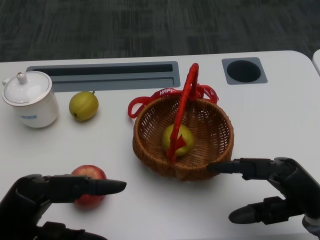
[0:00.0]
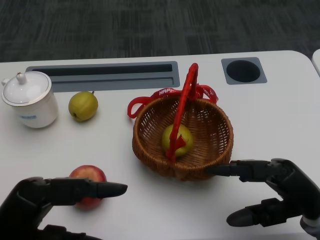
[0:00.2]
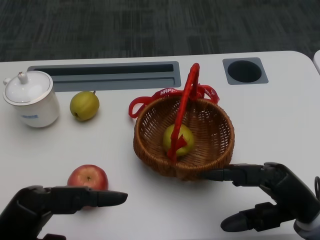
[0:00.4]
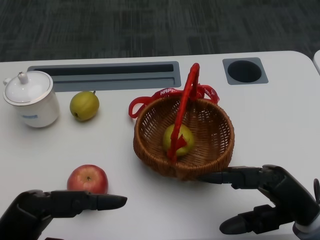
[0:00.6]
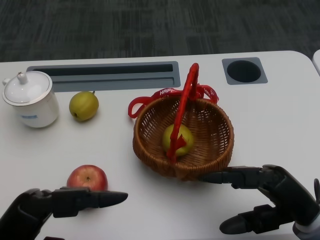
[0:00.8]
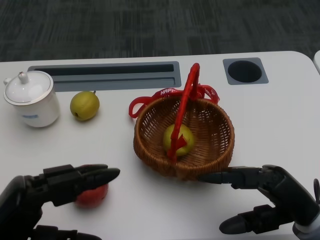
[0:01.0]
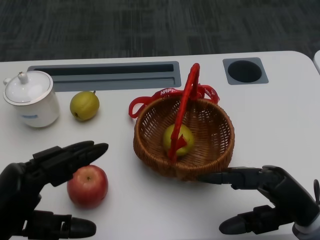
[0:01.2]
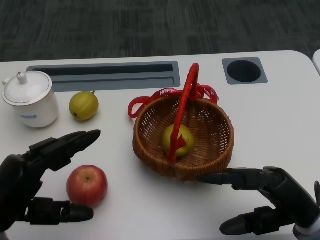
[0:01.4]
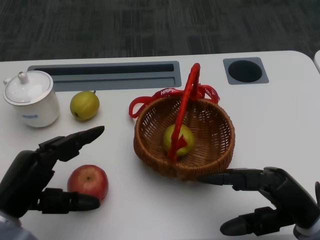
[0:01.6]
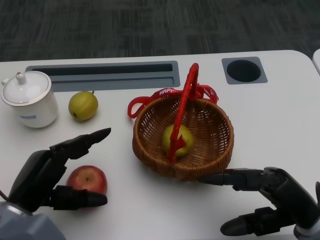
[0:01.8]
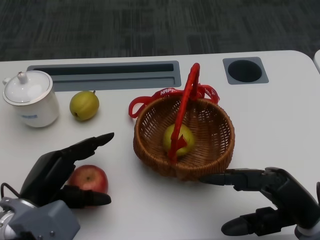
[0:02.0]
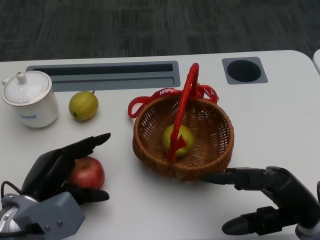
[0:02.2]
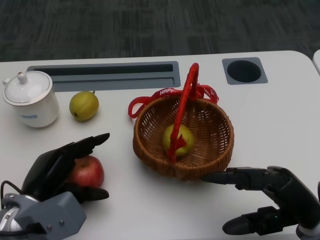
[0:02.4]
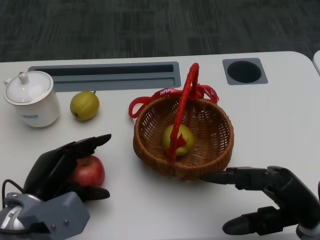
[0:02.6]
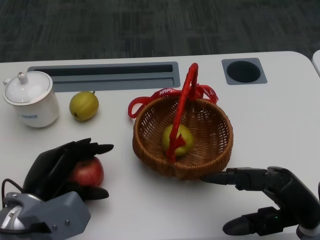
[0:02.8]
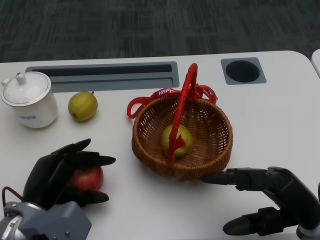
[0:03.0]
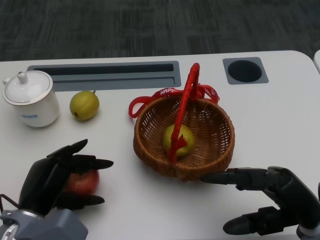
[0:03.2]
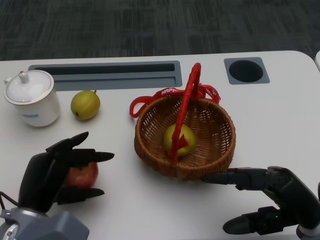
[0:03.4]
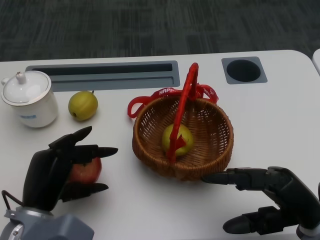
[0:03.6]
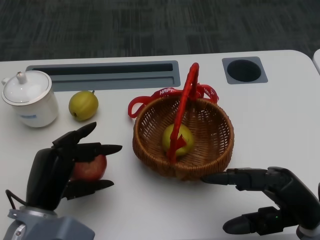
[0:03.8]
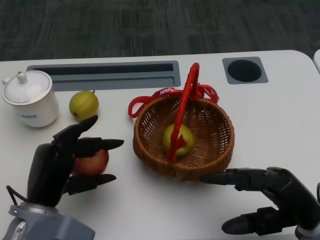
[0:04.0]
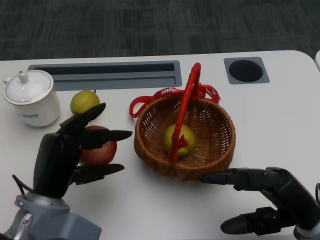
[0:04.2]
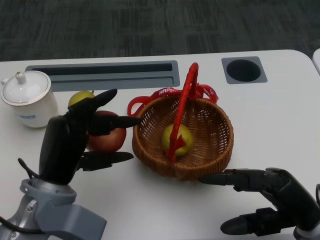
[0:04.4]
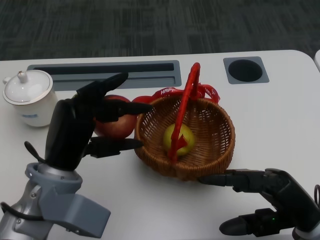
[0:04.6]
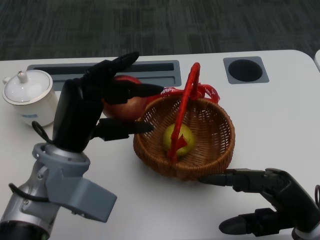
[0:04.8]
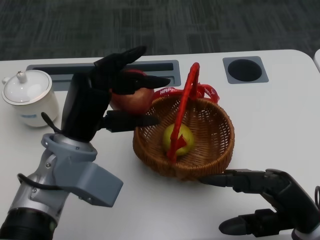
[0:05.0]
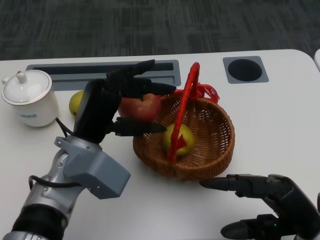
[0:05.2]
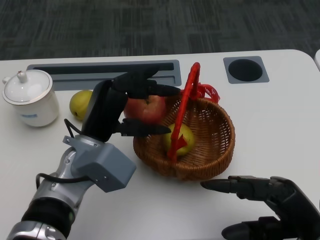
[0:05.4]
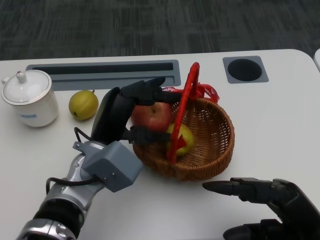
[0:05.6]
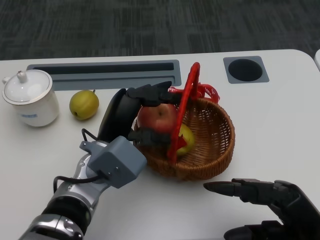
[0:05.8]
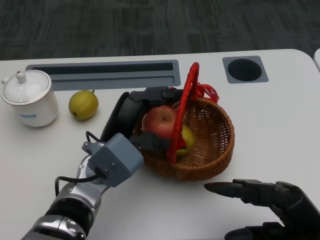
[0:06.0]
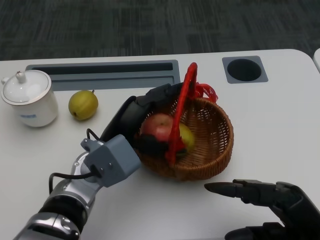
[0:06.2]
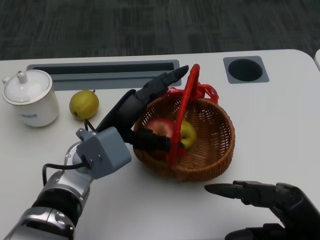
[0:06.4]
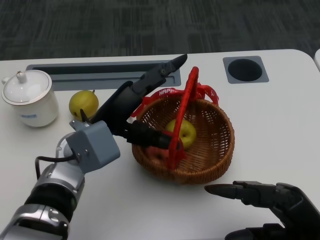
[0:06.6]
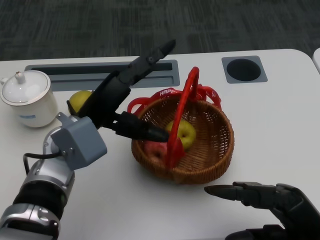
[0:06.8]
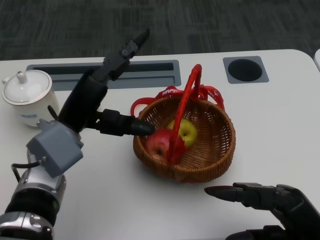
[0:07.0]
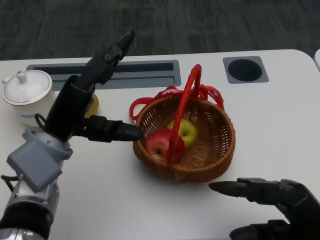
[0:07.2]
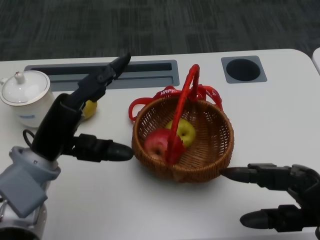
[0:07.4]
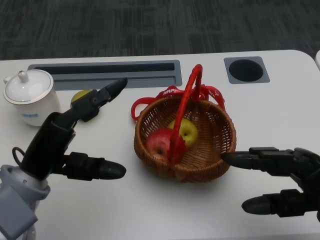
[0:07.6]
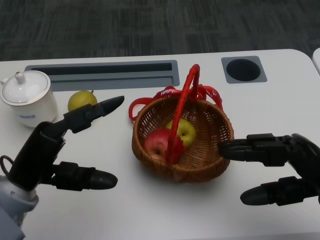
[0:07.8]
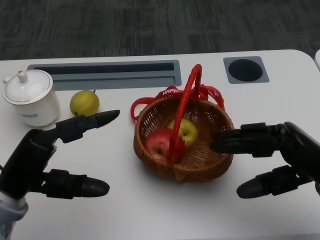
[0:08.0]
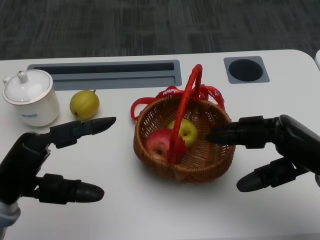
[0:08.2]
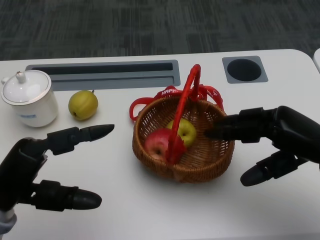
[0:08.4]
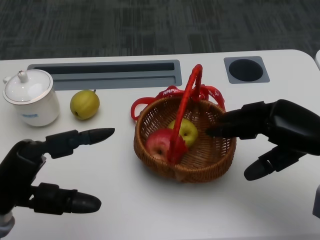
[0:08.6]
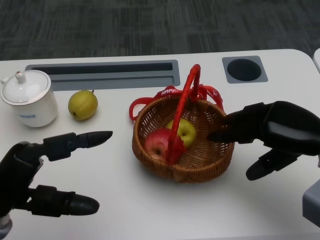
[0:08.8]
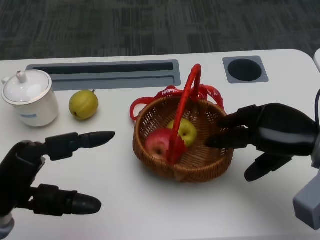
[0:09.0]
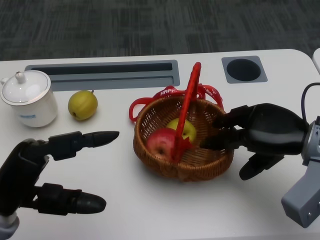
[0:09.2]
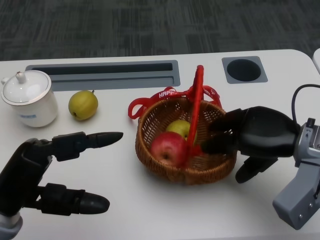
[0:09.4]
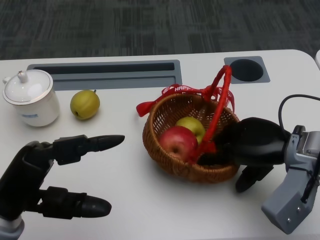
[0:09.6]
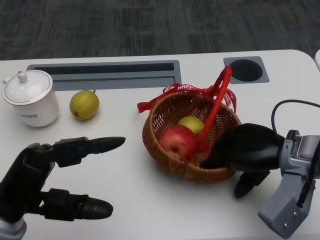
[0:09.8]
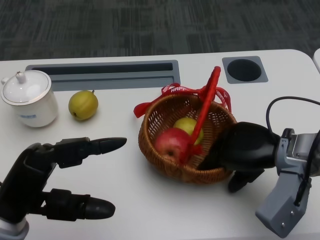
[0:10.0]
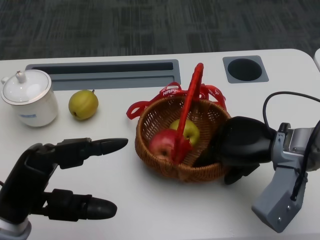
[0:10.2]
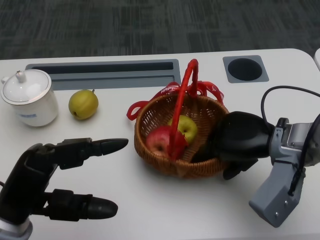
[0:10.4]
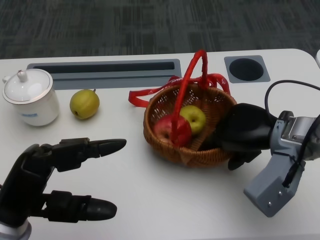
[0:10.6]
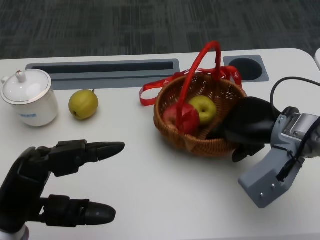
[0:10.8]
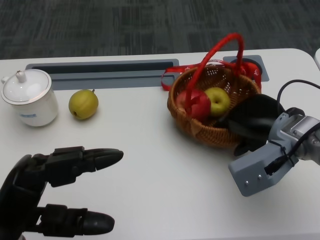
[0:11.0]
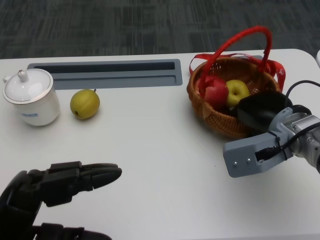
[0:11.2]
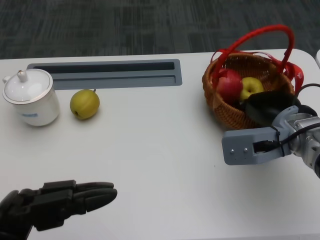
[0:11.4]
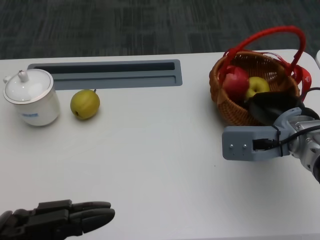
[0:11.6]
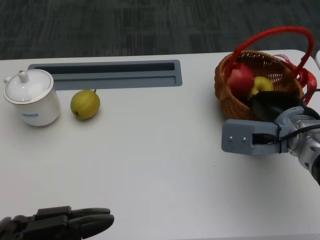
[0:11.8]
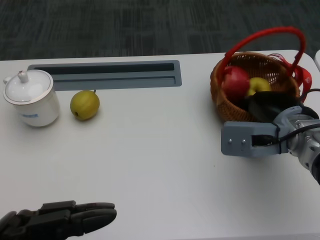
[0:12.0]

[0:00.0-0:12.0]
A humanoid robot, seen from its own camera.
Step, 0:00.6 to 0:02.2: Grasp the apple with the left gripper.
Step, 0:02.6 to 0:05.0: Place the apple into the basket with the left gripper.
Step, 0:05.2 to 0:08.0: Grasp the basket with the right gripper.
Step, 0:08.2 to 0:10.0: Move the basket to the front of the table with the right gripper.
0:01.6 to 0:03.0: The left hand moves approximately 5 cm.
0:03.0 to 0:04.4: The left hand shifts approximately 5 cm upward.
0:04.4 to 0:06.0: The left hand goes roughly 10 cm to the right and forward.
0:06.0 to 0:07.6: The left hand is displaced to the left by approximately 10 cm.
0:07.6 to 0:09.0: The right hand heads forward, covering roughly 10 cm; the left hand is displaced backward by roughly 5 cm.
0:09.0 to 0:10.4: The right hand goes roughly 5 cm to the left.
0:10.4 to 0:12.0: The left hand goes some 10 cm backward.

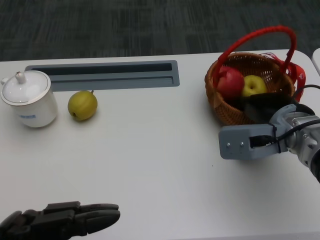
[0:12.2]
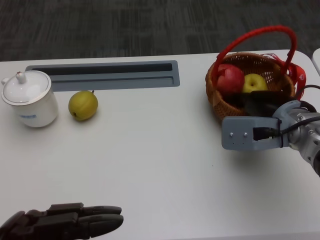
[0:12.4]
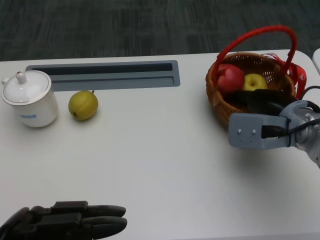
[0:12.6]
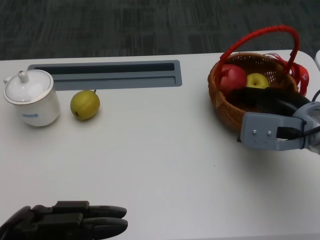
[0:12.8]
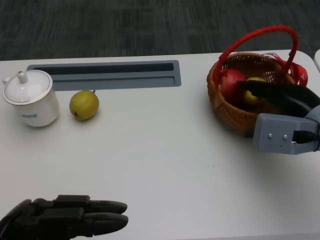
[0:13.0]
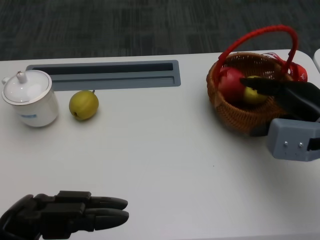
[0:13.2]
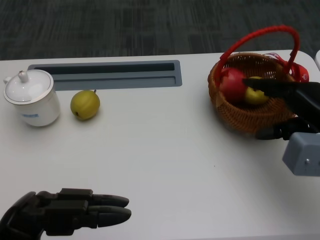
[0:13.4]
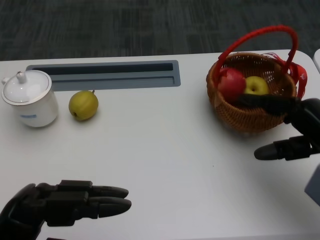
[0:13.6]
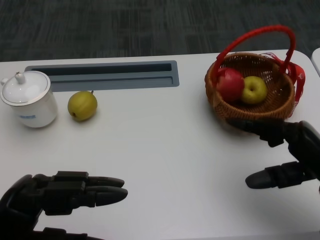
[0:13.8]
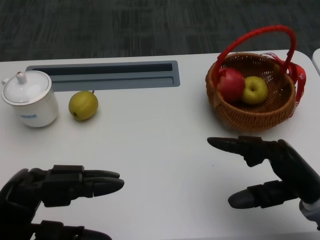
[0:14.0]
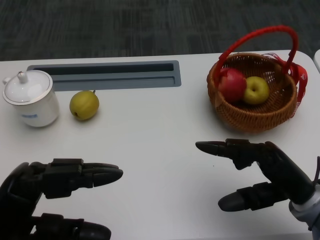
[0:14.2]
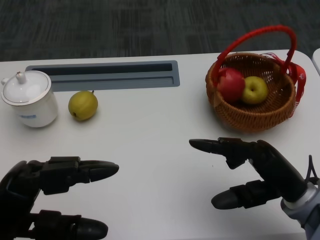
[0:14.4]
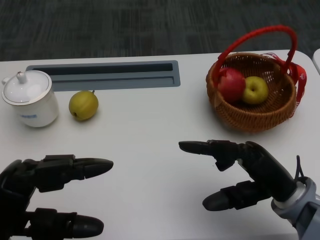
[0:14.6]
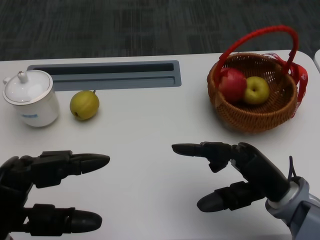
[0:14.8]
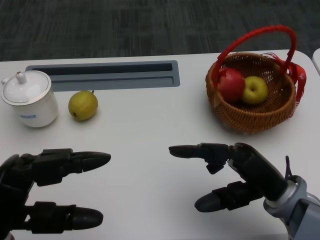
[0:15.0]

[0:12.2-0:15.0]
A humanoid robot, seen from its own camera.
0:12.2 to 0:13.6: The right hand shifts about 10 cm to the right.
0:13.6 to 0:15.0: The right hand heads to the left, covering approximately 10 cm.
